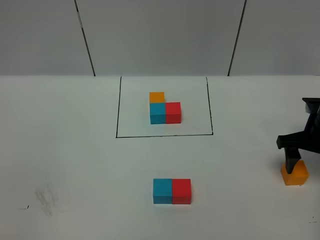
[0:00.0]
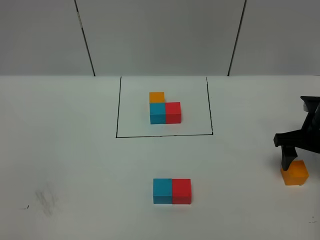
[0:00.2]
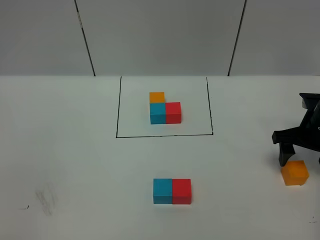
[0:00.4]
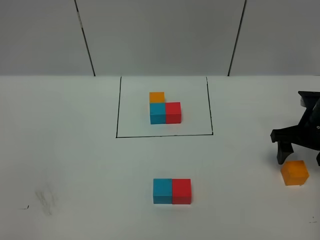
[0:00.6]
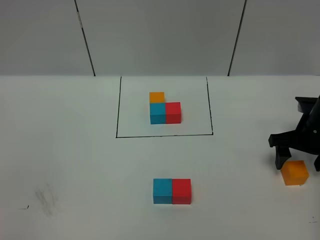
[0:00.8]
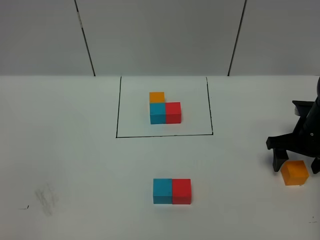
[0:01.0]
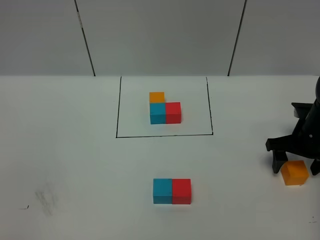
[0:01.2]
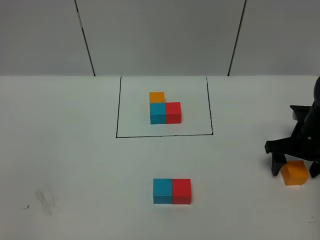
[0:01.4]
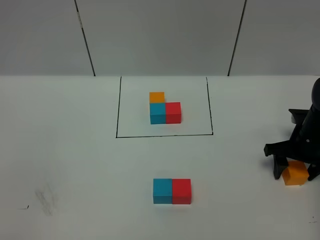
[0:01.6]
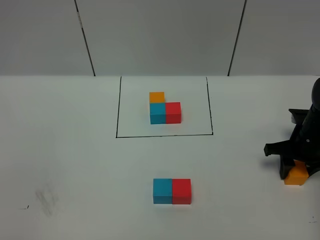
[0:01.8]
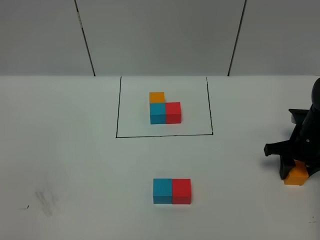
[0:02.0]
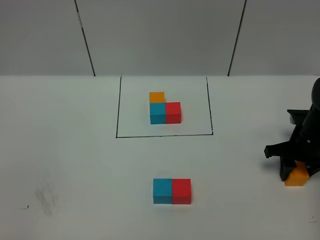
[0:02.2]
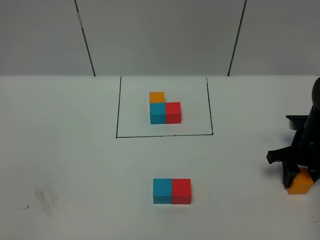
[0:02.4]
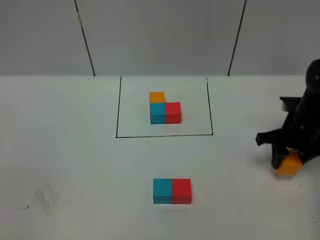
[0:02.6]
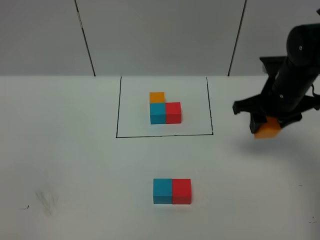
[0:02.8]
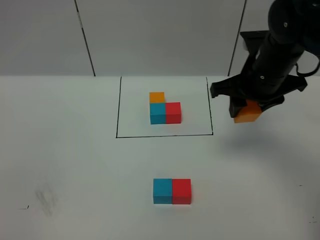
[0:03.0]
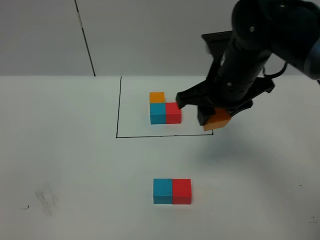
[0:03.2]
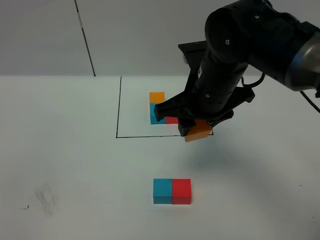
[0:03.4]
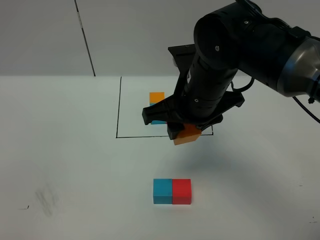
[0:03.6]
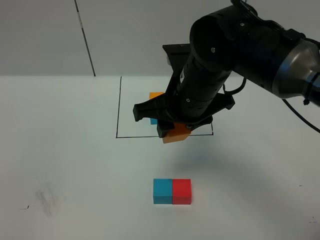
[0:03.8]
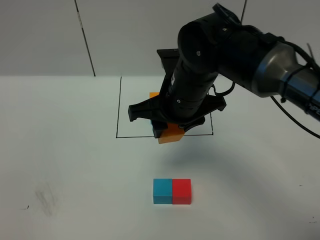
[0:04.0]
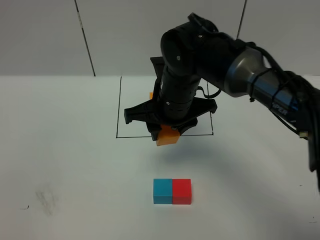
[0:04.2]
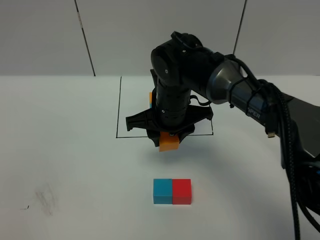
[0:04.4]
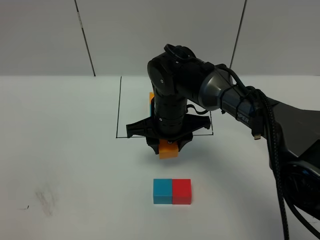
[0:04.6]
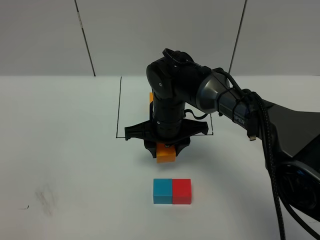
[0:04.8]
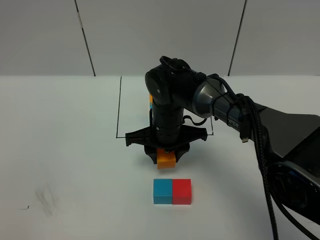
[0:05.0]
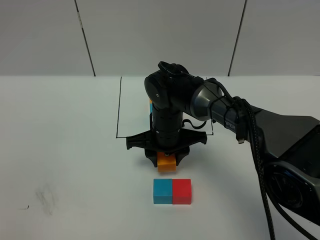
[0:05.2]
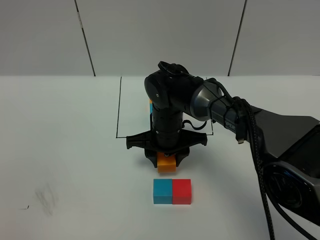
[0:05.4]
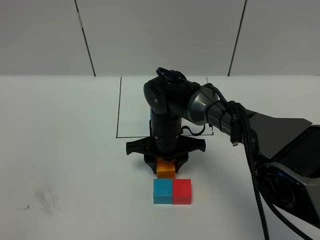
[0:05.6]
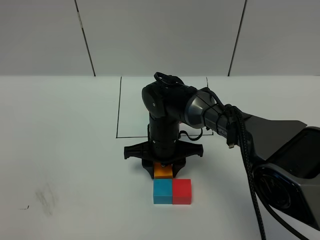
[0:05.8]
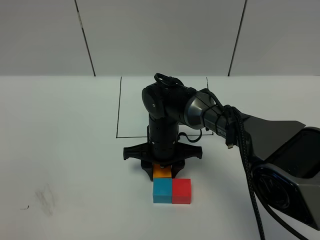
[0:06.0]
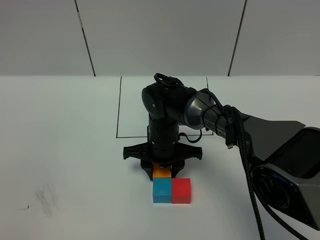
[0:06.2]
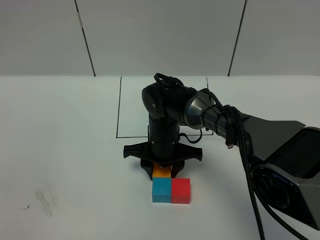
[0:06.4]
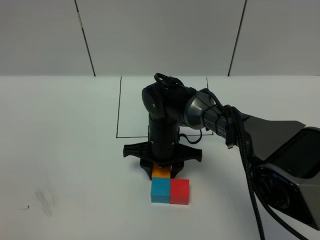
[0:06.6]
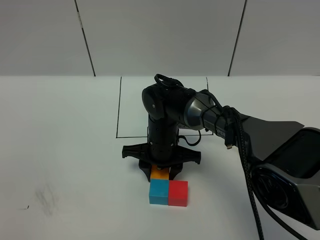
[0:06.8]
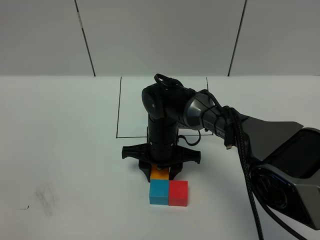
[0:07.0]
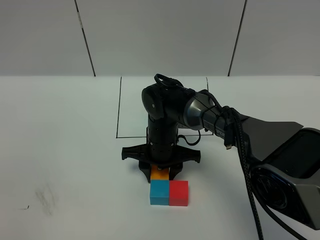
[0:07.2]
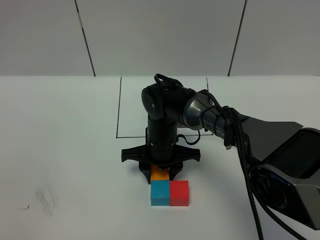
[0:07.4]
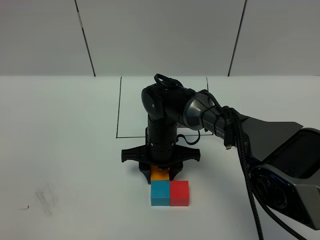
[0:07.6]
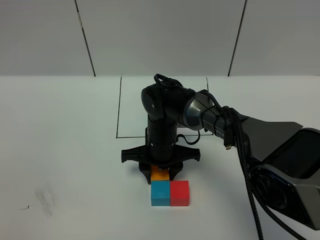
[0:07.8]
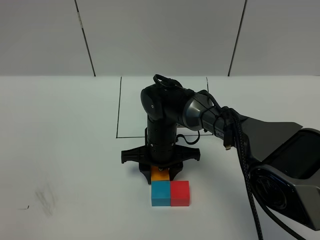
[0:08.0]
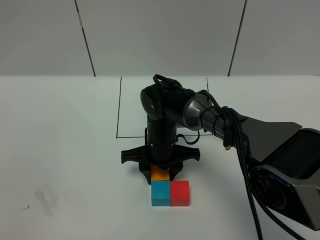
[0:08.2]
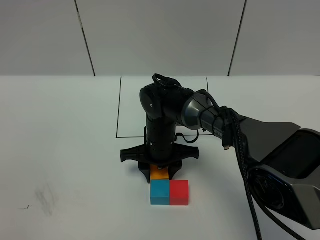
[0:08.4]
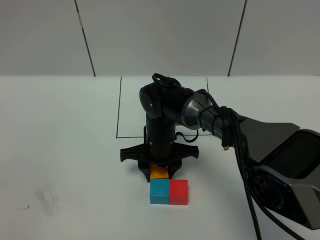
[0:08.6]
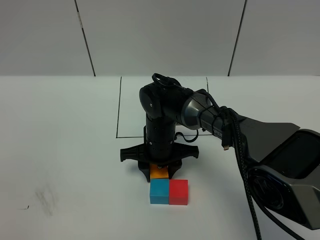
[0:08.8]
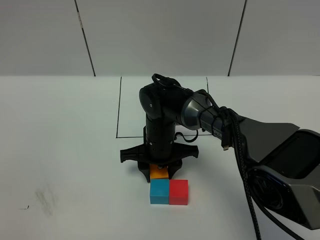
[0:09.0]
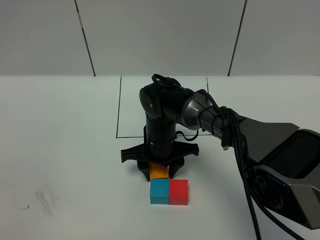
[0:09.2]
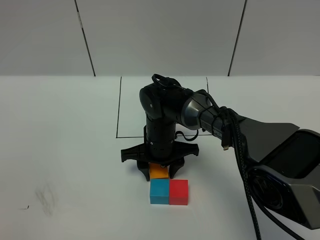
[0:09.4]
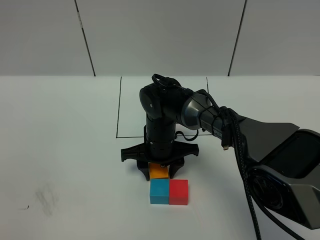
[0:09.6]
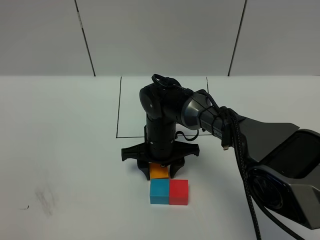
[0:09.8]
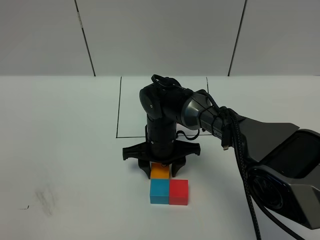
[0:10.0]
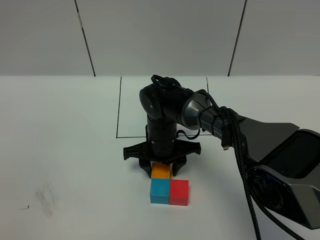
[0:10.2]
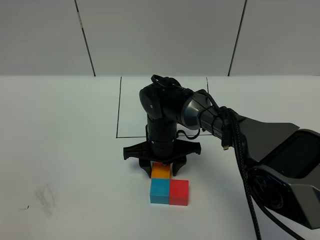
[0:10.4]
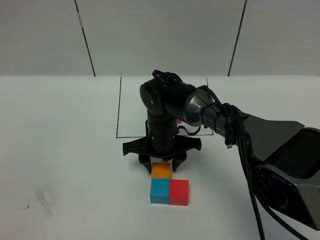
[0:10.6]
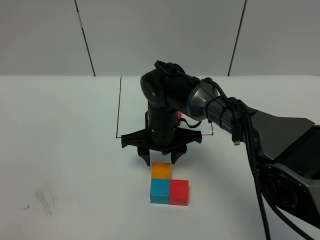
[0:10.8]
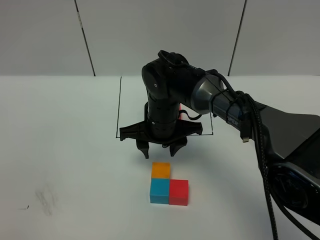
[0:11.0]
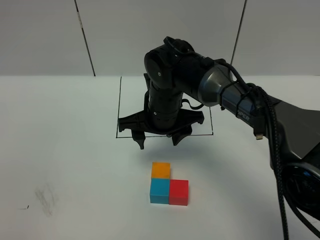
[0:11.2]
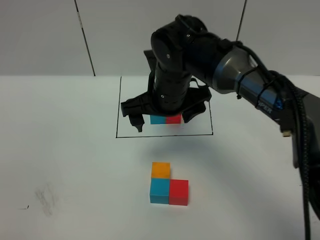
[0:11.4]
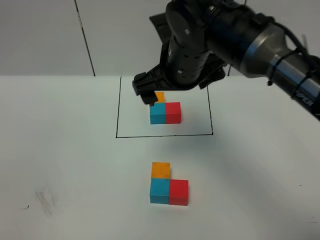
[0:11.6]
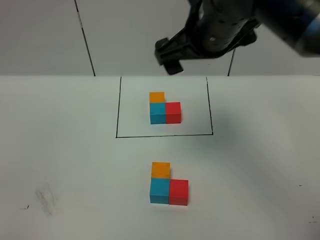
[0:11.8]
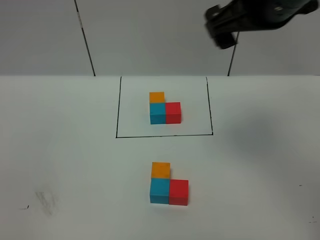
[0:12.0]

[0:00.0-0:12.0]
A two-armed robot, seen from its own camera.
Task of the whole recording: According to the building block template in front, assemble the scattered blocks together.
Step, 0.0 to 10.6 s: Put the orange cube on the behind of the blue cube.
0.0 to 1.6 s: The right gripper shifts by approximately 5 cm.
1.6 to 3.0 s: The right gripper heads upward and to the left, covering some 25 cm, and closes its fingers.
3.0 to 4.4 s: The right gripper shifts about 15 cm to the left and downward.
4.4 to 6.0 s: The right gripper moves downward, about 10 cm.
6.0 to 7.6 s: The grippers move only a little.
7.6 to 9.0 s: Both grippers stay about where they are.
9.0 to 10.4 s: Neither gripper changes place.
10.4 to 12.0 s: The right gripper shifts roughly 35 cm upward and to the right, and opens up.

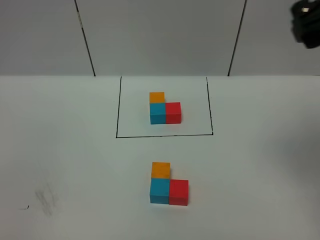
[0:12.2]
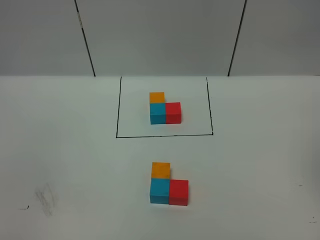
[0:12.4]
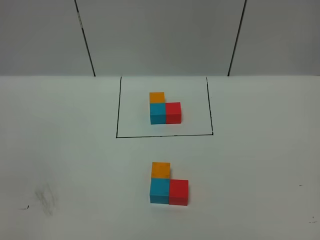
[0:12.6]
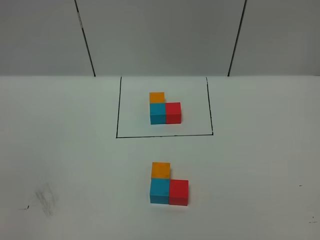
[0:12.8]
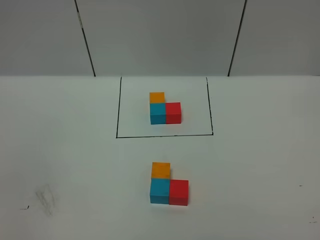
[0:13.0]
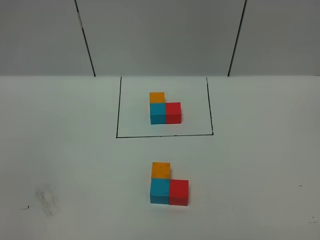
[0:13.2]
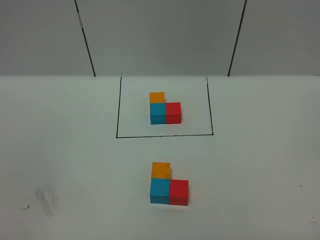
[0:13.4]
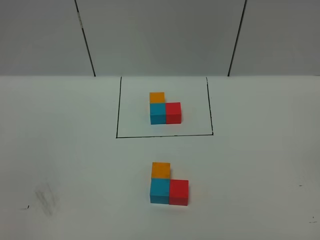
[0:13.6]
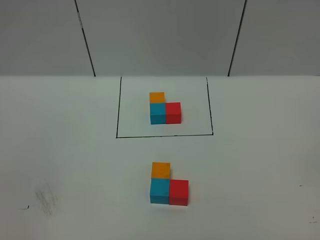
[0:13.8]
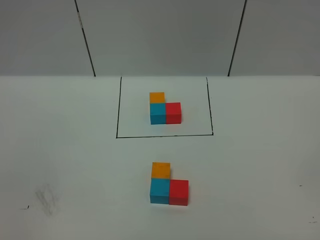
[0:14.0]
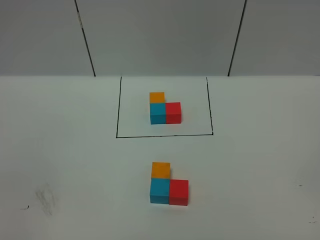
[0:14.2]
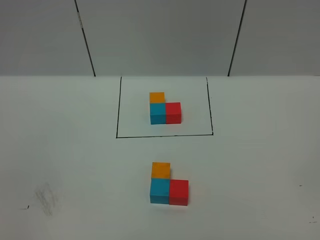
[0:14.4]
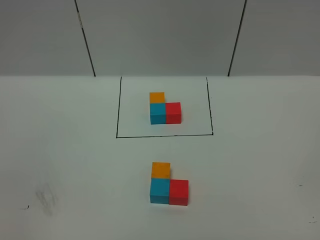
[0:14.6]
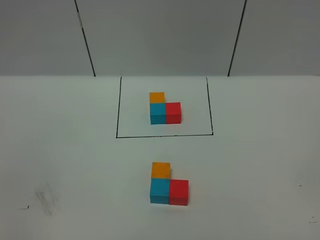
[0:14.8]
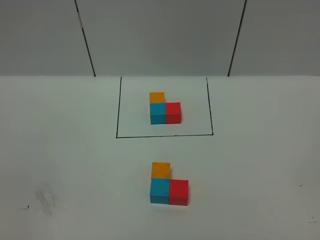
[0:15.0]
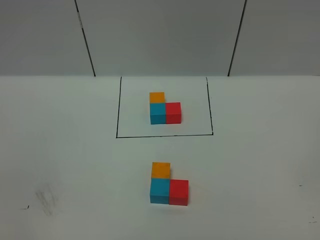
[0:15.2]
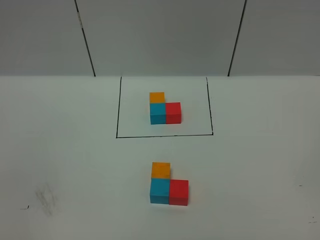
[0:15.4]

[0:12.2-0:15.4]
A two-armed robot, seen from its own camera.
Task of the whole recording: According to the building block template in front, assemble the scattered blocks together.
12.2 to 13.8 s: The right gripper goes approximately 30 cm backward and downward.

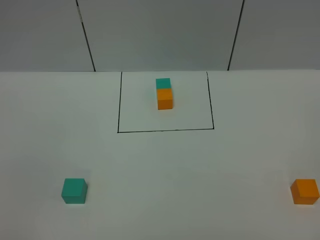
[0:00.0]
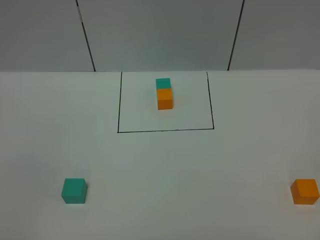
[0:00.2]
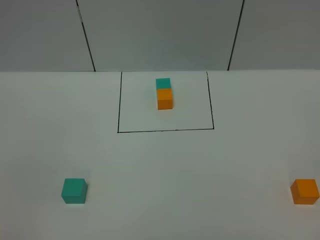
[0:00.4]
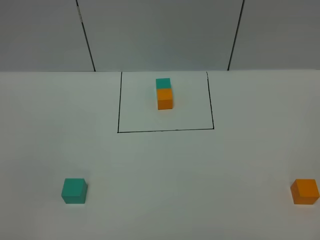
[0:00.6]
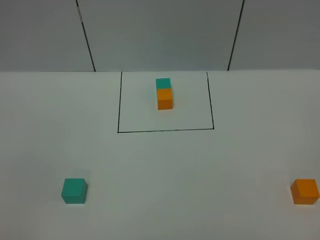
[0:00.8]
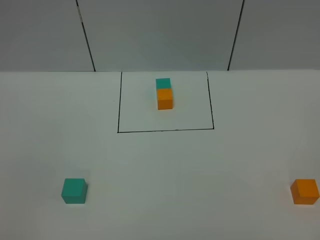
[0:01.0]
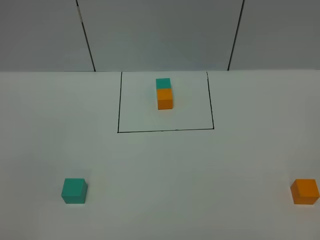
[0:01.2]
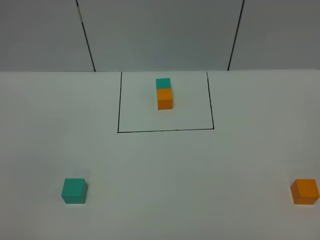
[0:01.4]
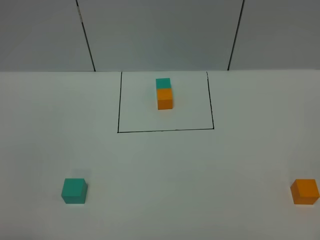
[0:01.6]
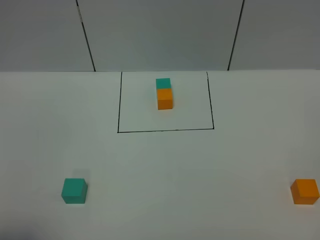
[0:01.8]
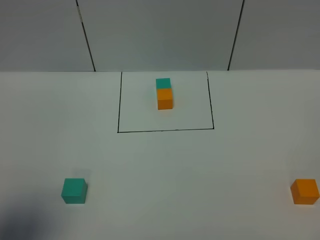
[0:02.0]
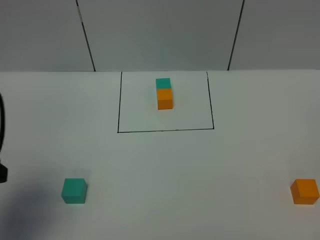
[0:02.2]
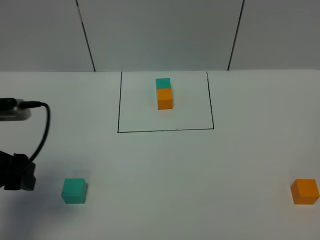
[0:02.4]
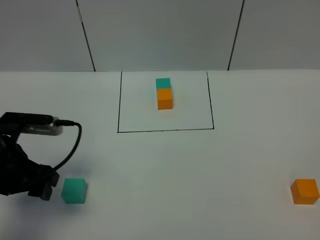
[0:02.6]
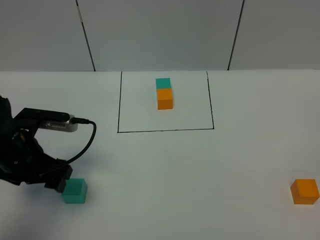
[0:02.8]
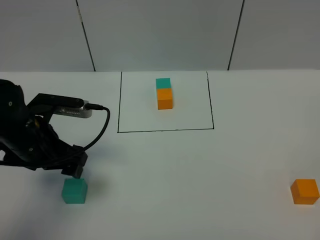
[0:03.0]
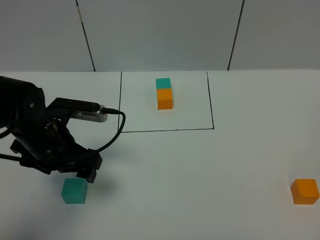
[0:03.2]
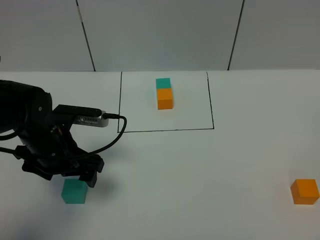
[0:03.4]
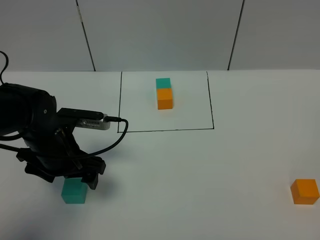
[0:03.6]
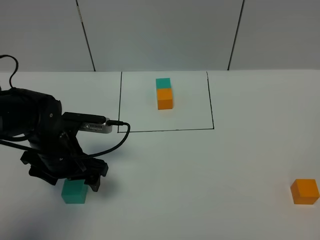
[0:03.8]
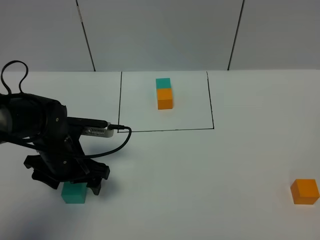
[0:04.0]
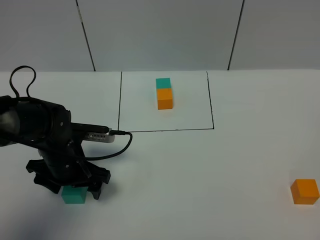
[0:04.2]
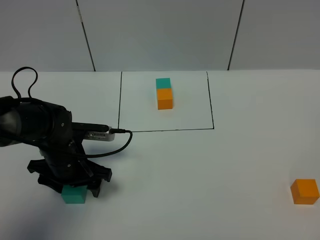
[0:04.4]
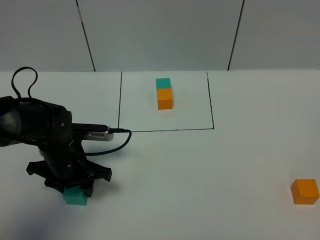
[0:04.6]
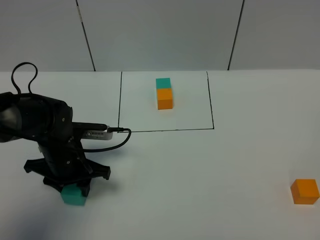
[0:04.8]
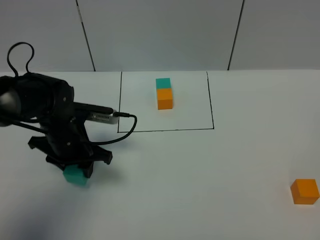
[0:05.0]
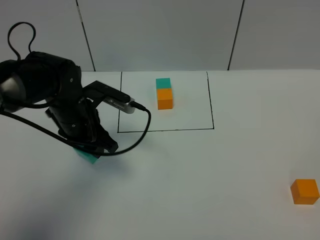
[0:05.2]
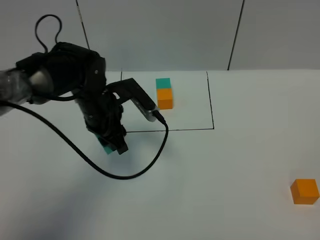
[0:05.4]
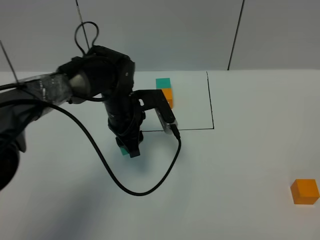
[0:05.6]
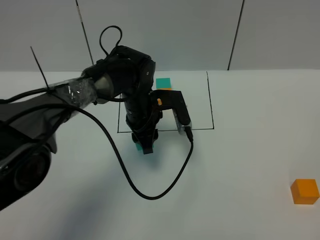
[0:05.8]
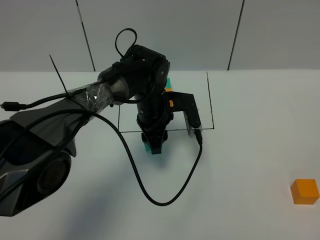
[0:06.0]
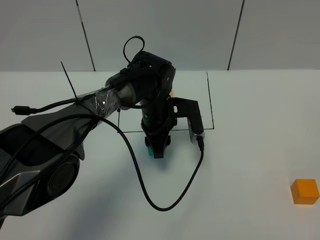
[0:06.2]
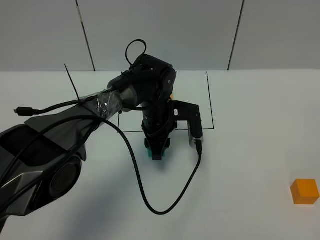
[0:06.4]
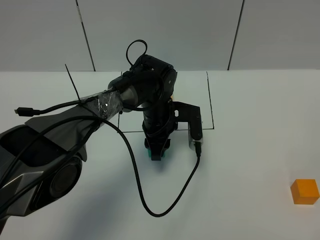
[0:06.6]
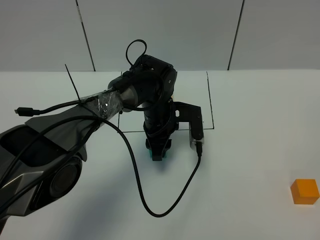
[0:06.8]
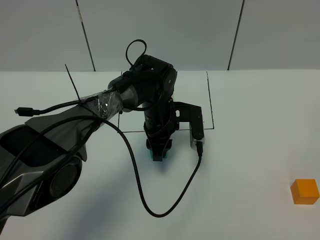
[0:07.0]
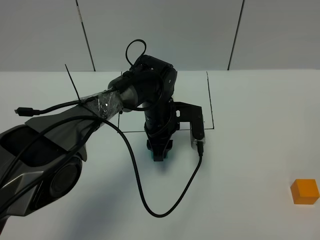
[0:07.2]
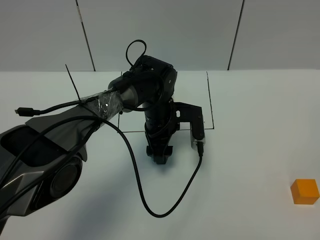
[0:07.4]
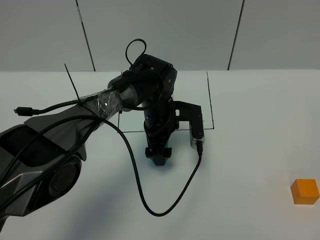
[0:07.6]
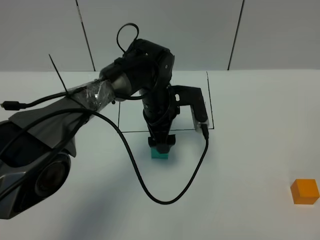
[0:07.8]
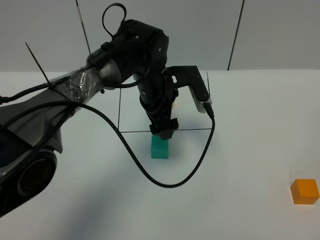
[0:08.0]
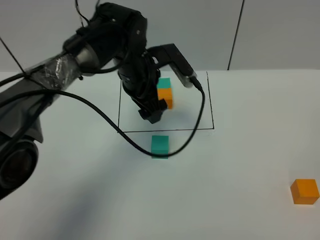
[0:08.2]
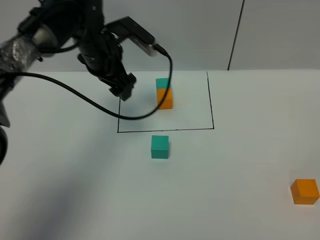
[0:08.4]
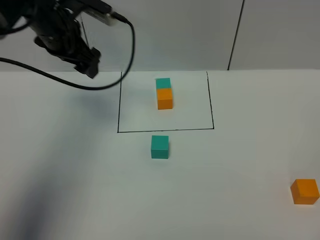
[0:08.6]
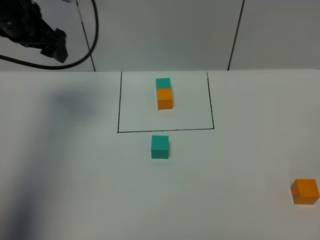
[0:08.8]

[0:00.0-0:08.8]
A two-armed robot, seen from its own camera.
Task of the whole recording: According to the building block template in front, assemble the scattered blocks together.
Step, 2.2 to 8.0 s: Put the green cube in the center of the table.
1.4 to 3.0 s: The left gripper is displaced forward by roughly 25 cm.
3.0 to 4.4 s: The left gripper travels downward by about 10 cm.
4.4 to 5.8 s: The left gripper shifts some 20 cm to the right and forward, and closes its fingers.
5.8 to 7.4 s: The left gripper opens its fingers.
7.4 to 8.8 s: The left gripper heads to the left and upward, covering approximately 35 cm.
